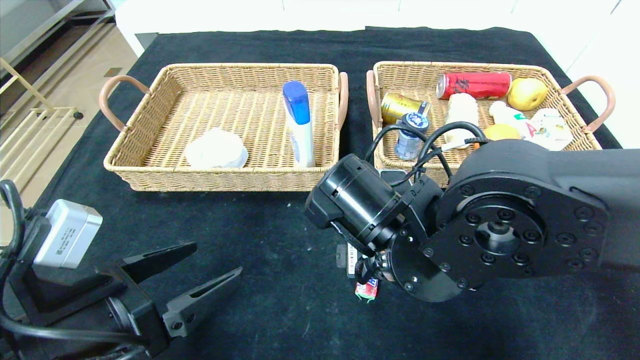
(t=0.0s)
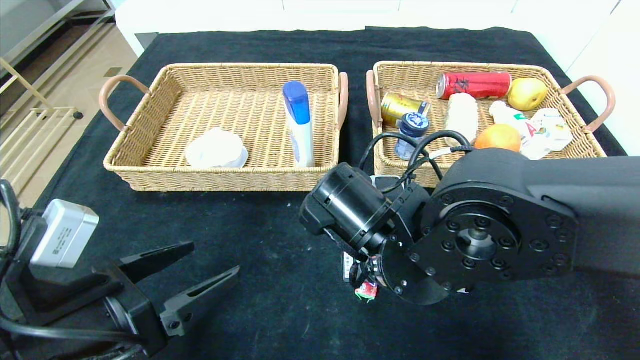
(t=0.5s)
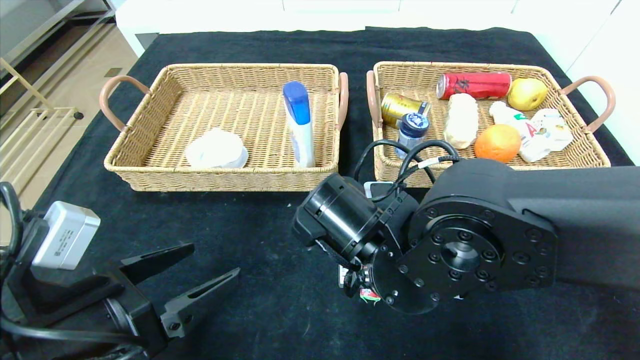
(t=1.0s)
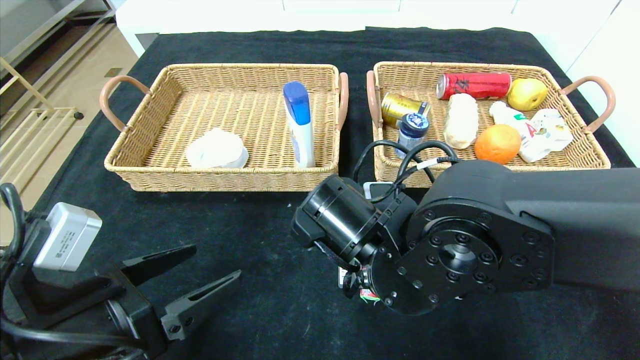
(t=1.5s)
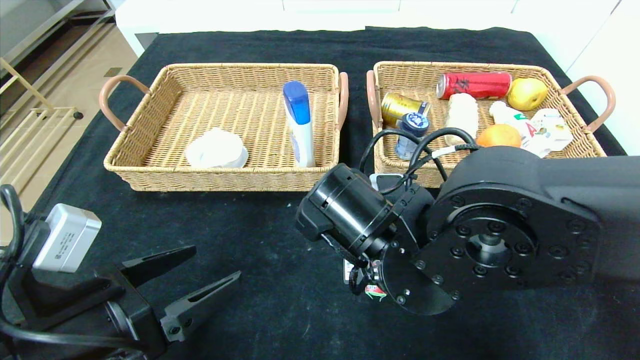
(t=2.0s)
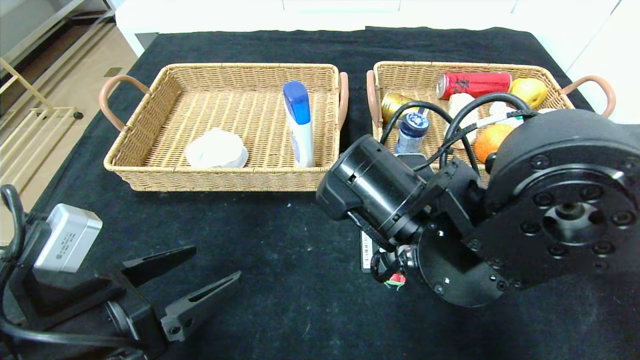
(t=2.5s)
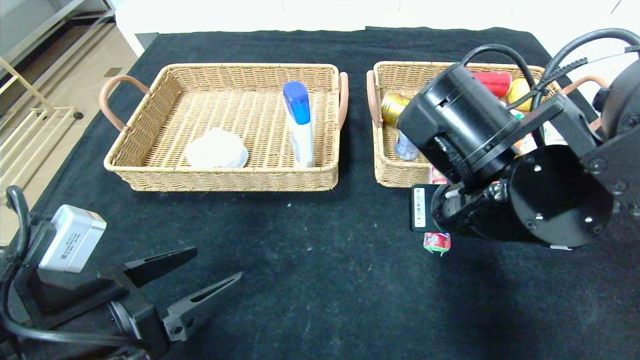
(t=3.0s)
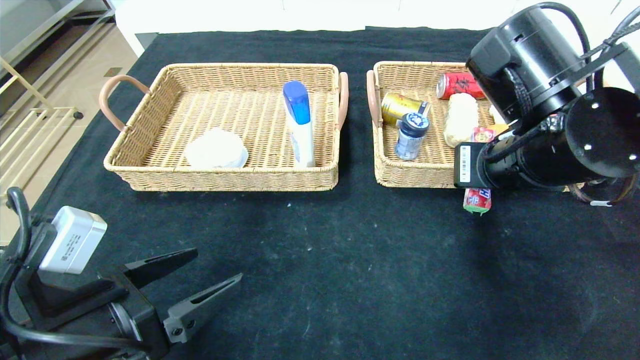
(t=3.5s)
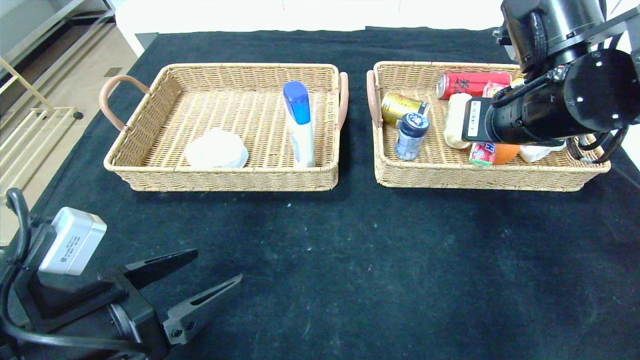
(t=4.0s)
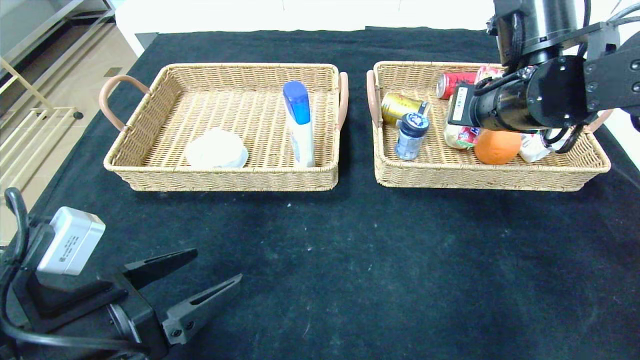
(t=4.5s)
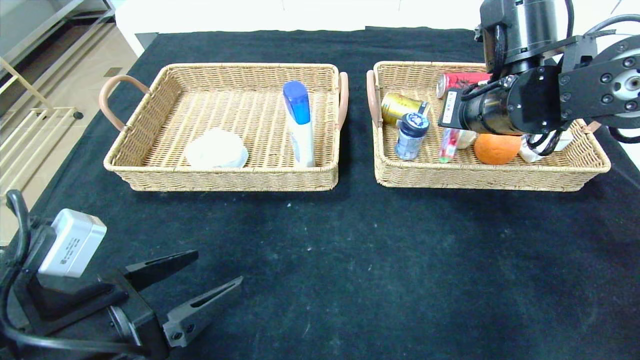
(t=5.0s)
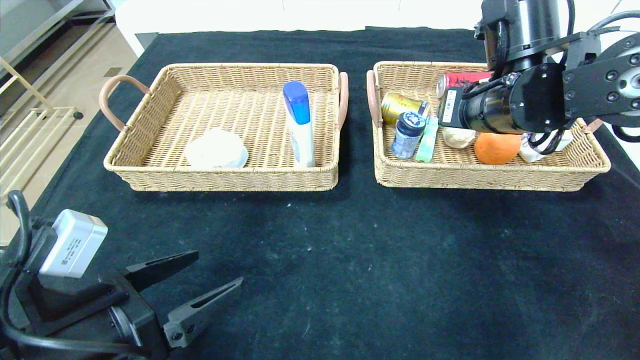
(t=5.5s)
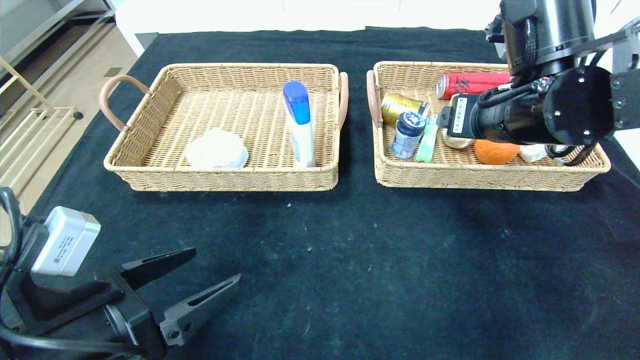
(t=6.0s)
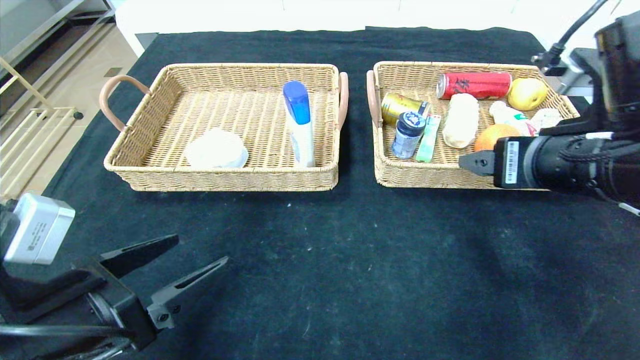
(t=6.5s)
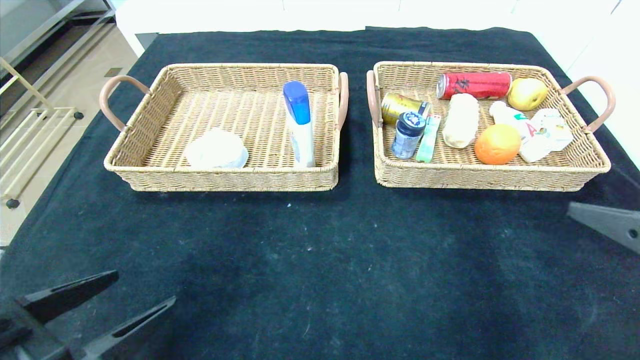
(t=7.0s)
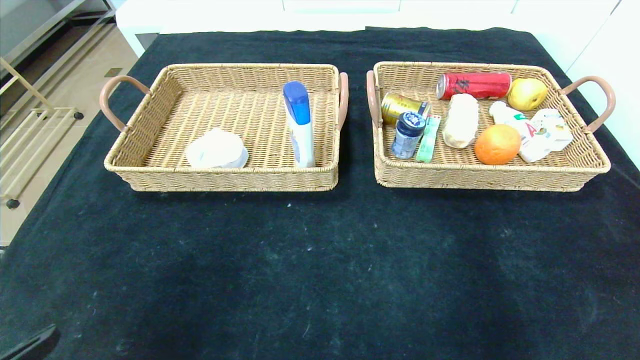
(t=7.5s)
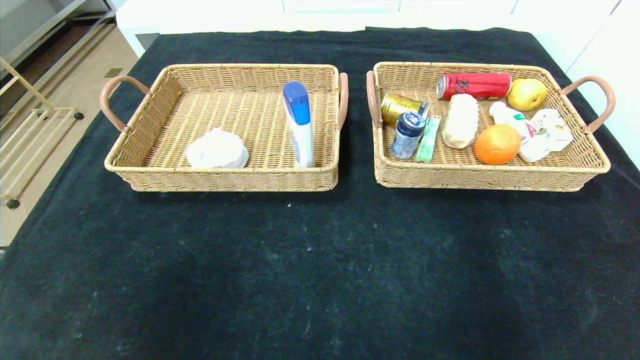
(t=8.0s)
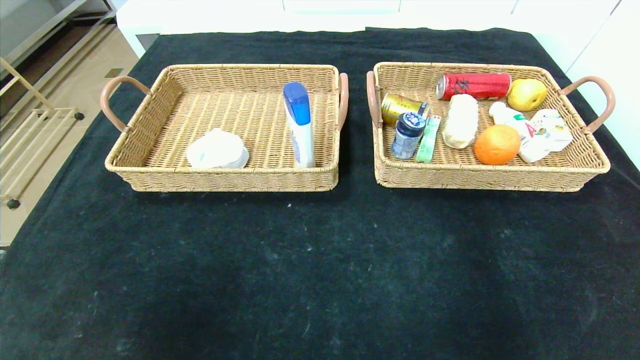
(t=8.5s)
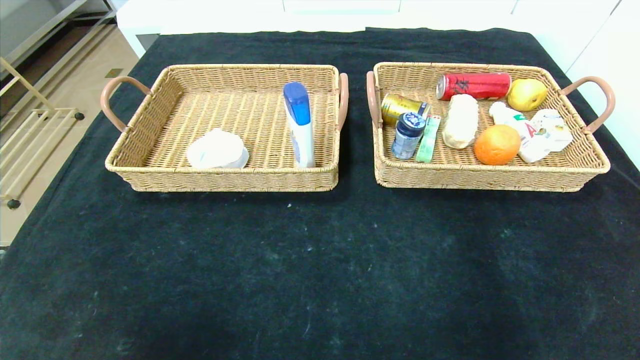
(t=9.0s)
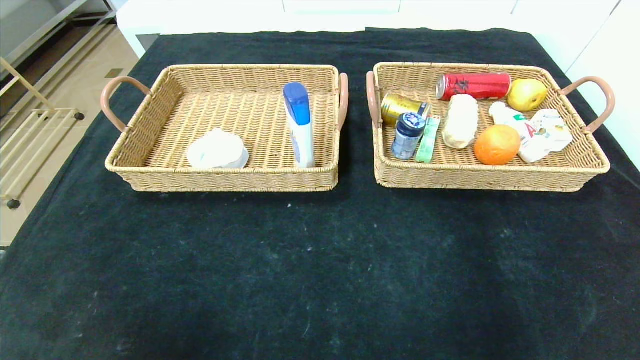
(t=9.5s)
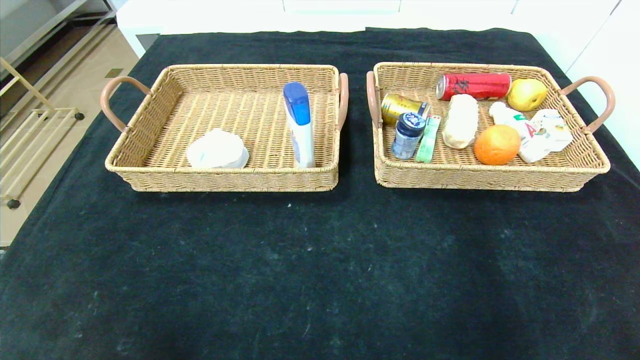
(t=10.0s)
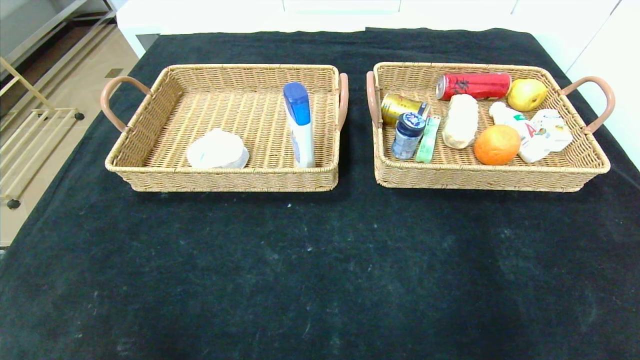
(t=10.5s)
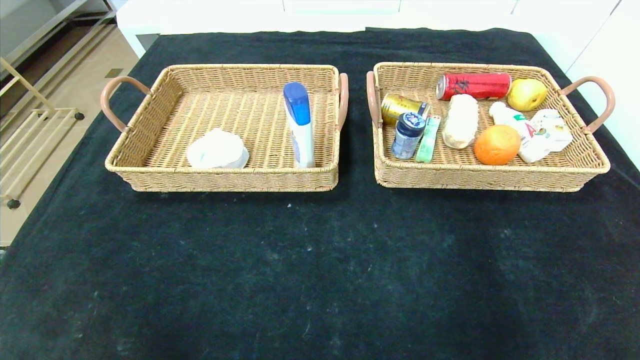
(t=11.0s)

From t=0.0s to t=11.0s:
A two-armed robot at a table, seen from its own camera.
Step, from t=0.0s to t=5.5s: Grasp the fruit fudge and put it in the right basket.
From t=0.0s to t=2.0s: The right gripper closes its fingers.
From t=2.0s to t=3.5s: The right gripper heads to the right and upward, covering roughly 15 cm.
From t=3.5s to t=5.5s: The right gripper goes approximately 5 cm forward, and opens up.
From t=5.5s to t=7.5s: The left gripper is displaced backward, to the left and upward by about 15 cm; the right gripper moves backward and to the right, approximately 35 cm.
From t=7.5s to t=9.0s: The two grippers go approximately 15 cm backward and downward.
